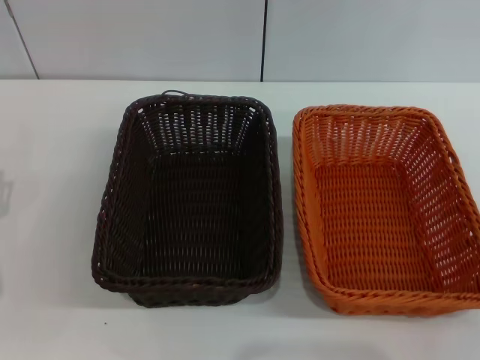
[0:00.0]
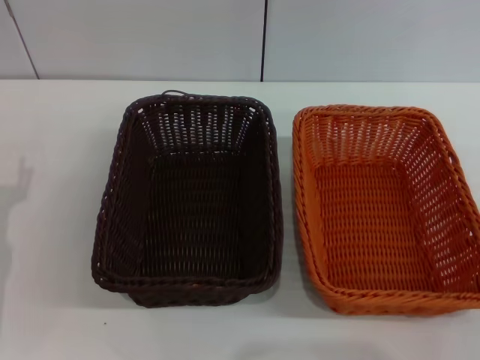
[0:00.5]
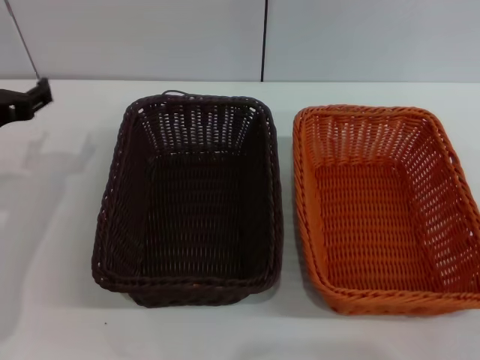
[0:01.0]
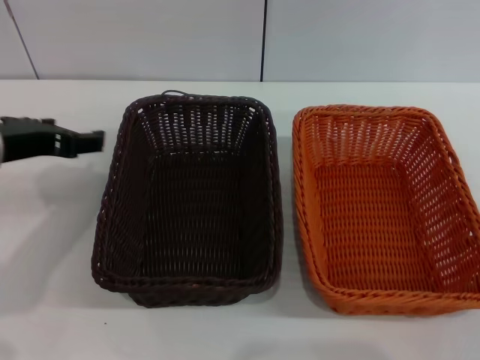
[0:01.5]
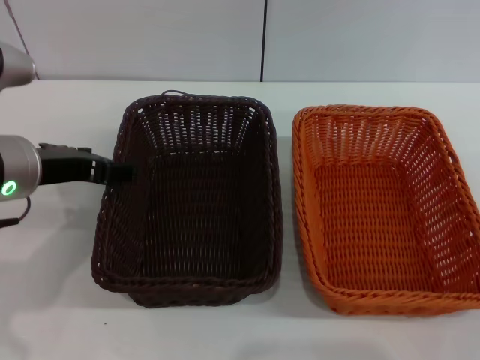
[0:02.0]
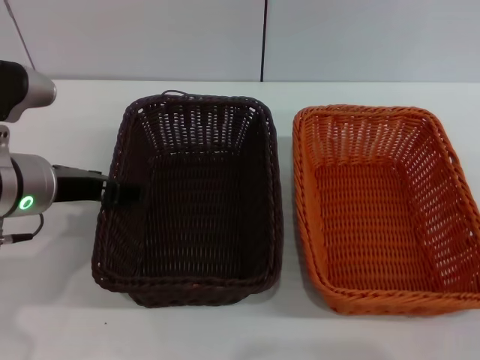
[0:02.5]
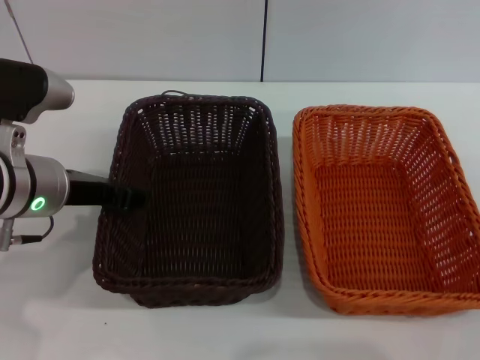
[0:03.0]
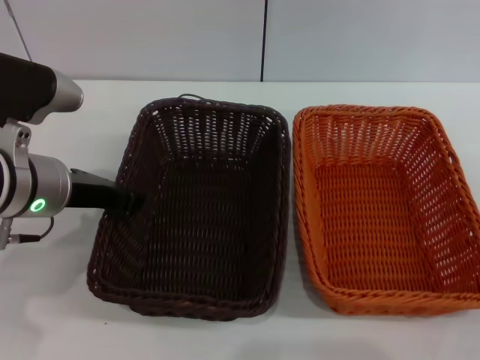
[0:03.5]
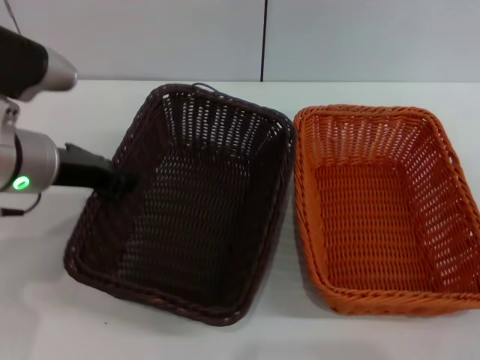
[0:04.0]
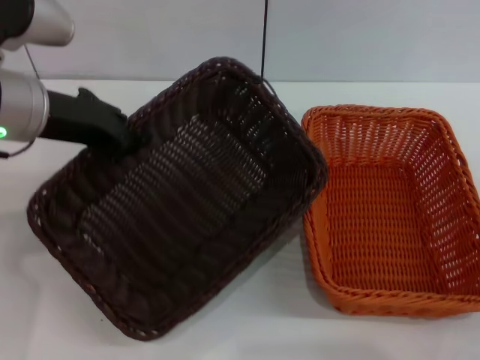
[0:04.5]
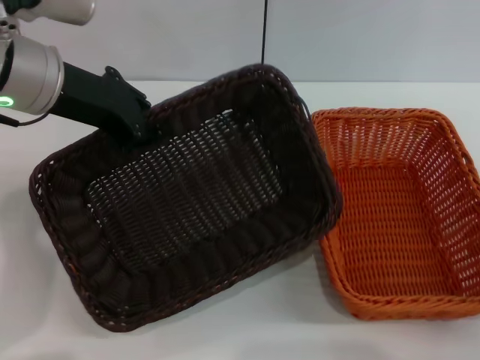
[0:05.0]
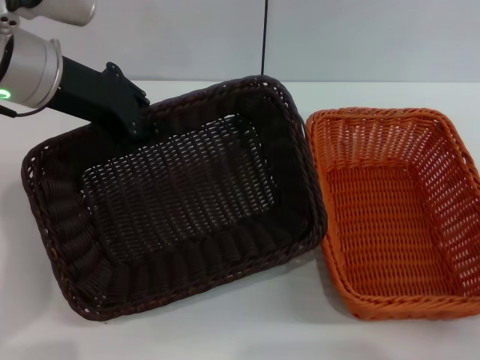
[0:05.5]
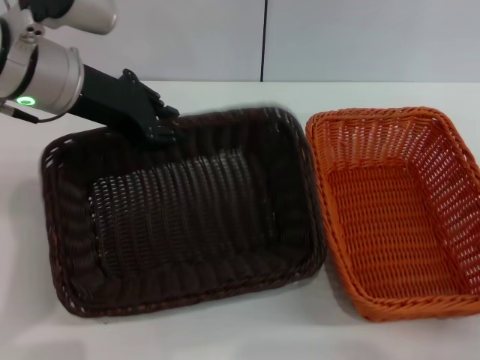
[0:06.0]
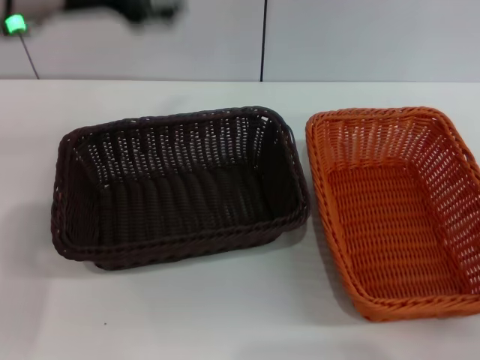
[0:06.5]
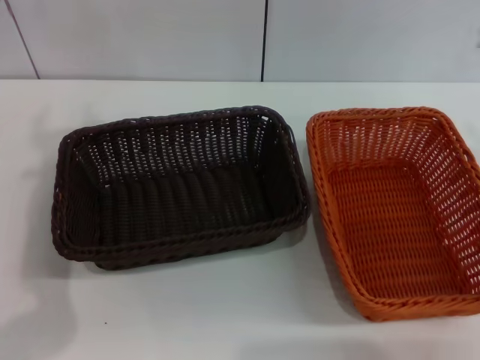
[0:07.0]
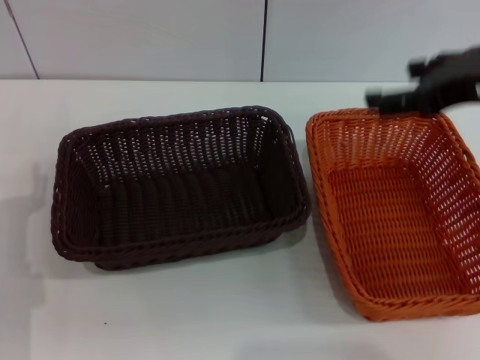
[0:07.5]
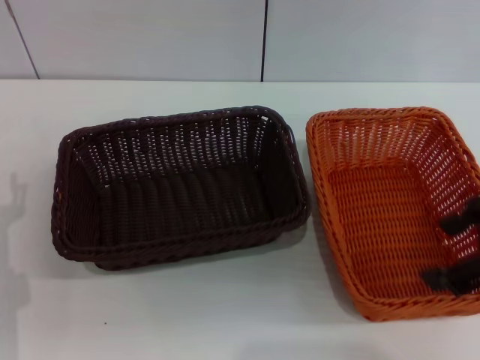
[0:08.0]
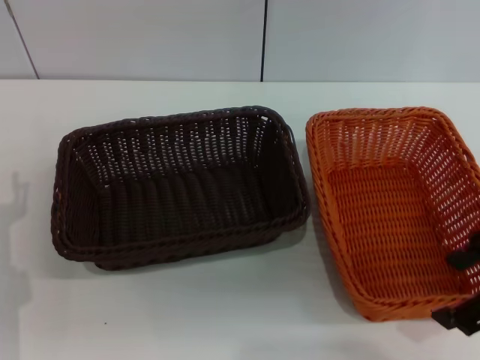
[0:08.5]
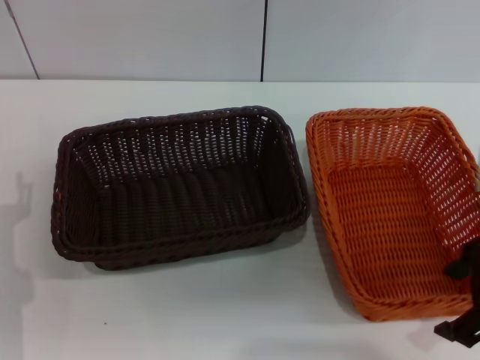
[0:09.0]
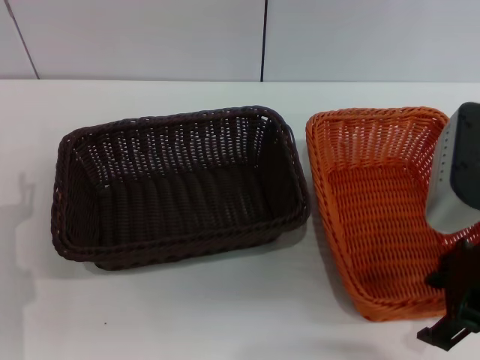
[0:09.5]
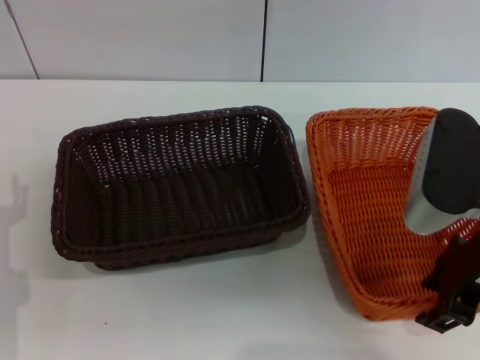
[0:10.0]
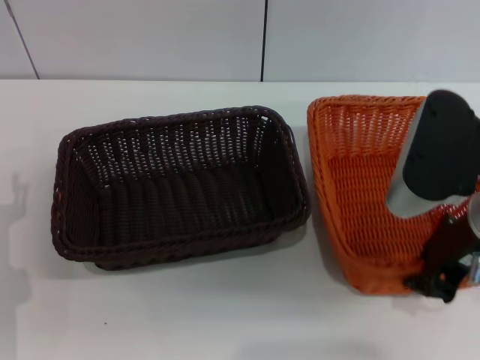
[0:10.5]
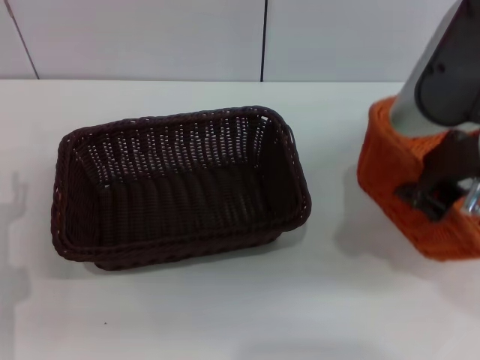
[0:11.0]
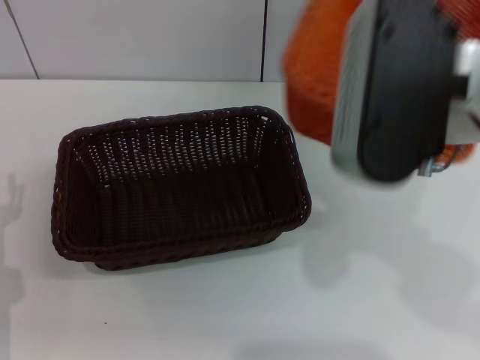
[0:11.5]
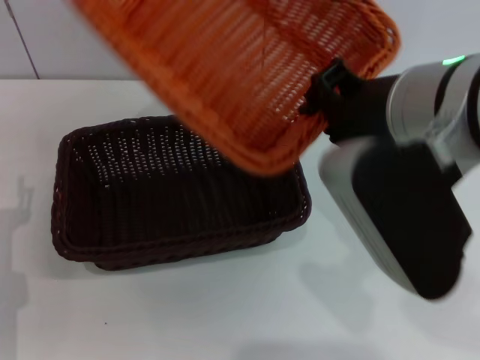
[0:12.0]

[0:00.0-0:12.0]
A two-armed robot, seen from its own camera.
Step, 0:00.0 to 0:04.0: Pick up the dark basket with the left gripper.
Step, 0:04.5 to 0:06.0: Place the dark basket in the center of view with the left gripper.
Step, 0:06.5 to 0:11.0: Pick up the light basket with the right gripper.
0:00.0 to 0:02.0: The left gripper travels upward and to the right by roughly 15 cm.
0:02.0 to 0:04.0: The left gripper closes.
0:04.0 to 0:06.0: The left gripper goes some 10 cm upward and forward.
0:06.0 to 0:08.0: The right gripper is displaced upward by about 20 cm, while the left gripper travels downward, backward and to the left by roughly 25 cm, and opens its fingers.
0:08.0 to 0:10.0: The right gripper shifts roughly 10 cm downward and to the left.
0:10.0 to 0:12.0: The right gripper shifts some 10 cm to the left and upward, and closes its fingers.

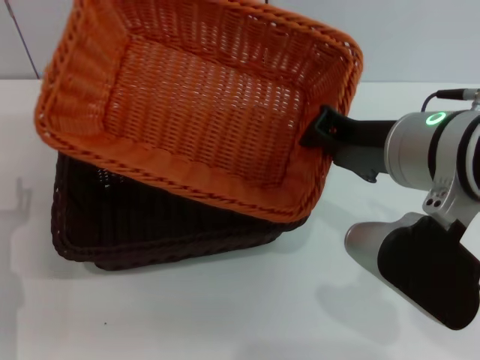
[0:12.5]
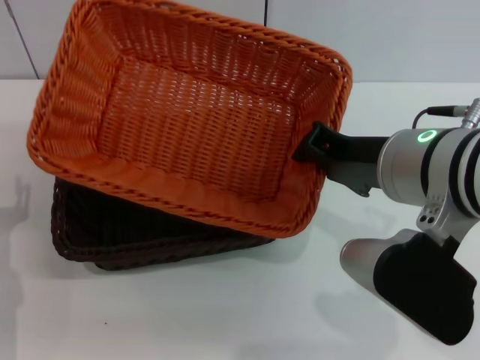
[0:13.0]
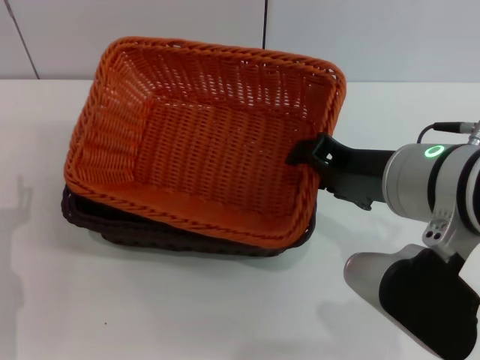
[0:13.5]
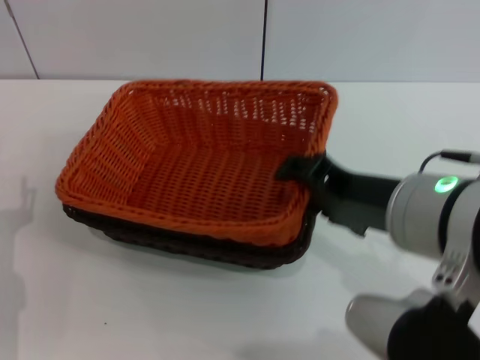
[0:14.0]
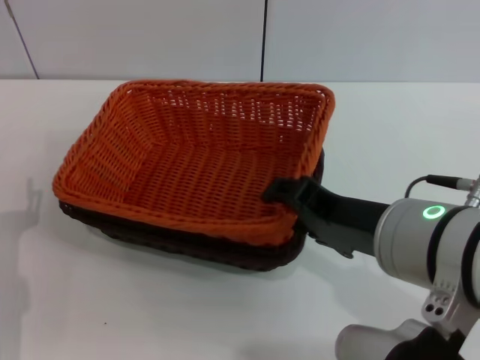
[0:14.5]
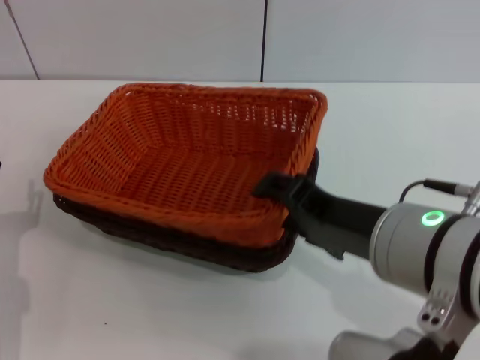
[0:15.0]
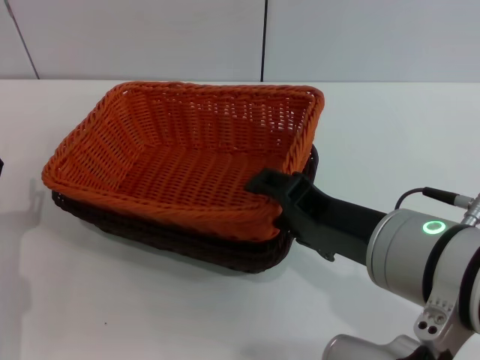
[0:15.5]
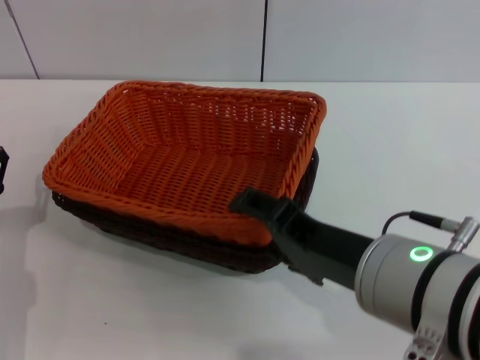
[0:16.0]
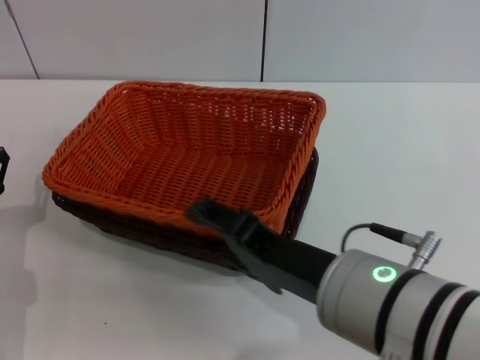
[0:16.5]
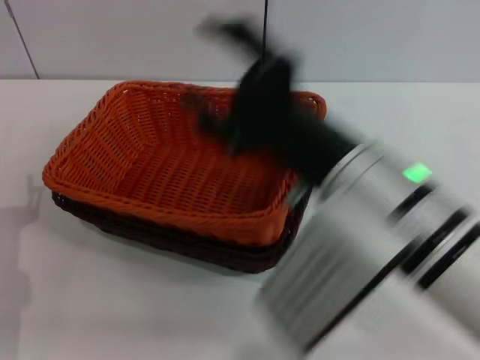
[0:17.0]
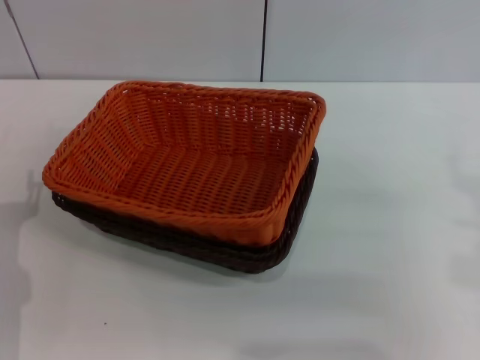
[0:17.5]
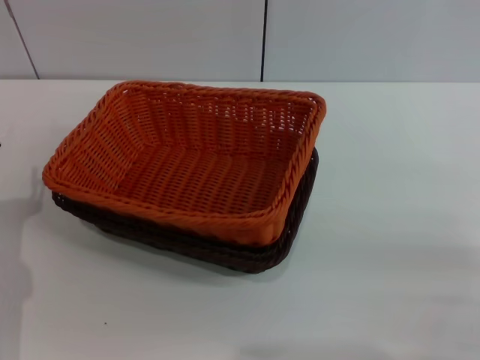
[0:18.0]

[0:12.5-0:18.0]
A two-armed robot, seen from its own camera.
Step, 0:12.5 to 0:15.5: Place the light basket on the dark basket with the right gripper.
0:12.5 to 0:14.5: The right gripper goes some 5 cm backward, and opens.
0:14.5 to 0:16.0: The grippers make only small movements.
0:16.0 to 0:18.0: The right gripper heads to the right and downward, covering some 25 cm.
